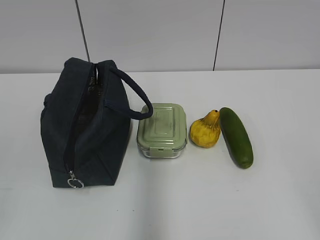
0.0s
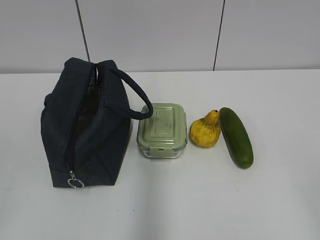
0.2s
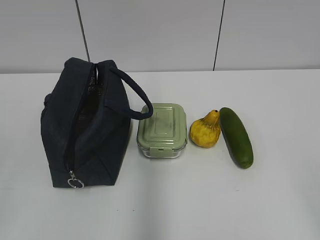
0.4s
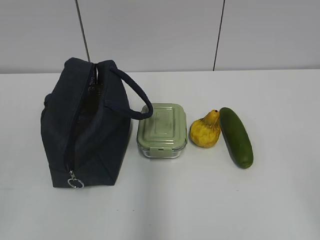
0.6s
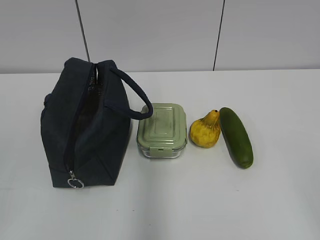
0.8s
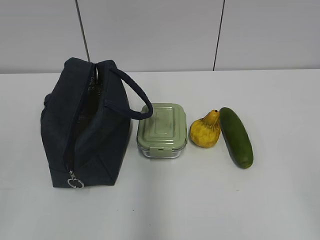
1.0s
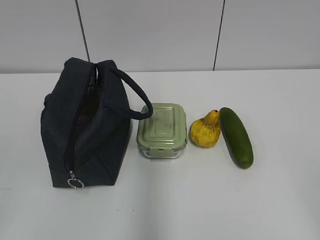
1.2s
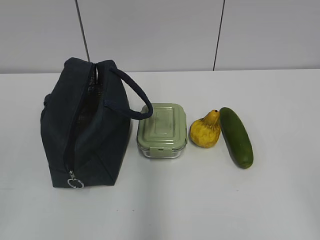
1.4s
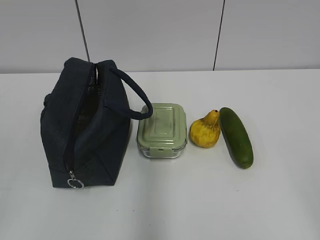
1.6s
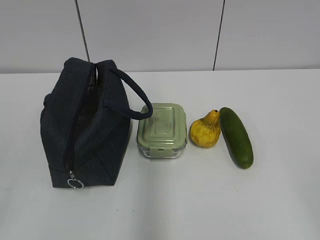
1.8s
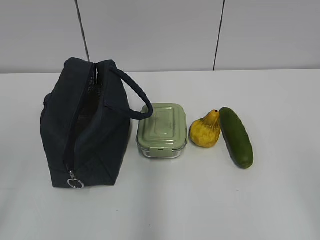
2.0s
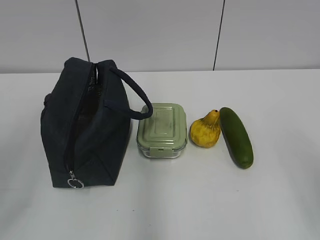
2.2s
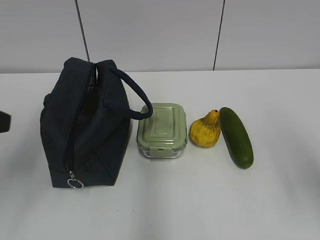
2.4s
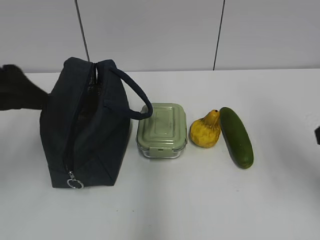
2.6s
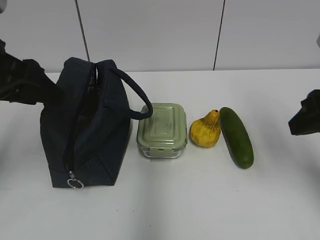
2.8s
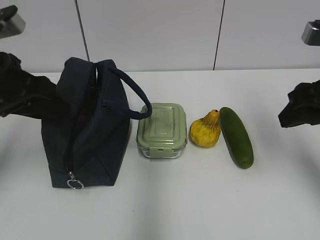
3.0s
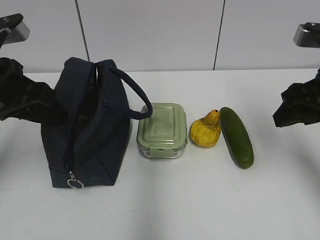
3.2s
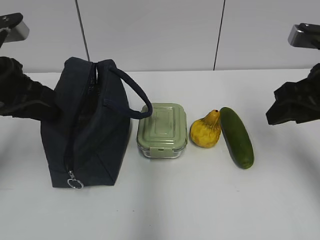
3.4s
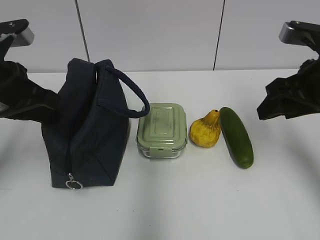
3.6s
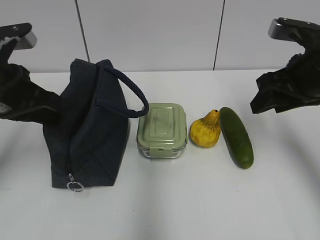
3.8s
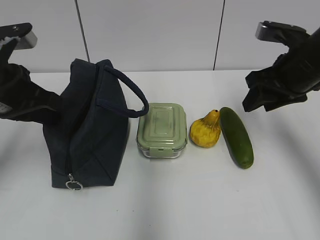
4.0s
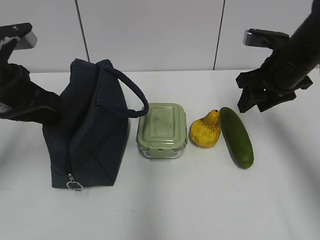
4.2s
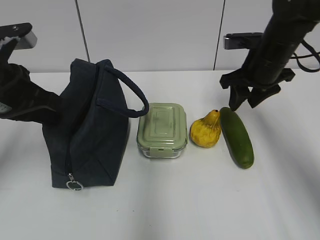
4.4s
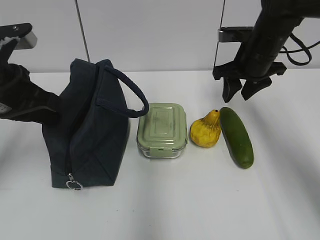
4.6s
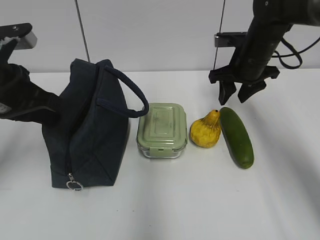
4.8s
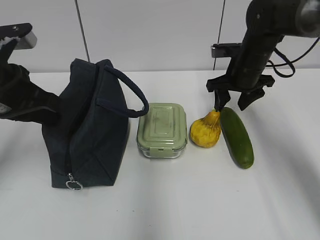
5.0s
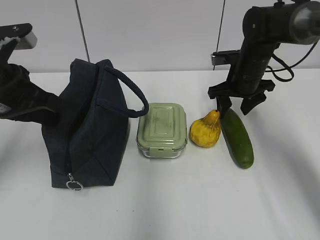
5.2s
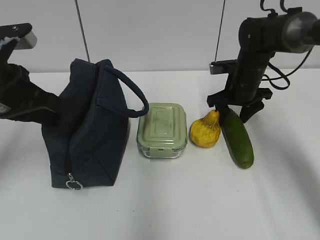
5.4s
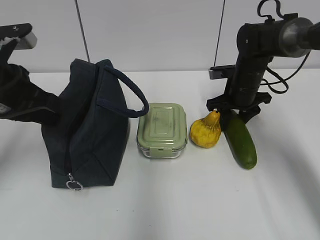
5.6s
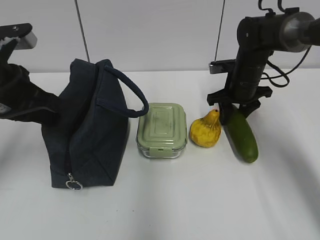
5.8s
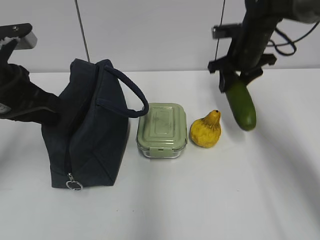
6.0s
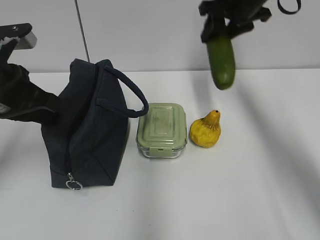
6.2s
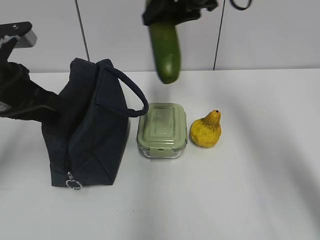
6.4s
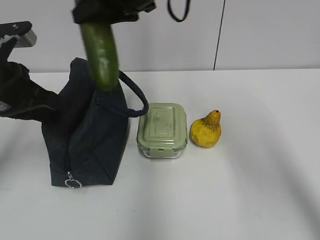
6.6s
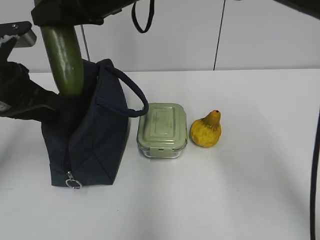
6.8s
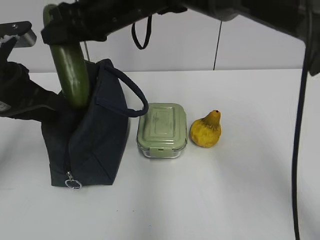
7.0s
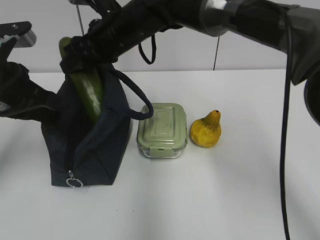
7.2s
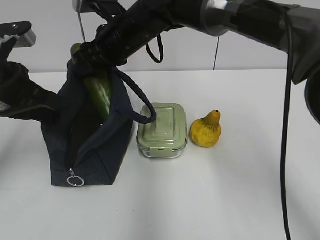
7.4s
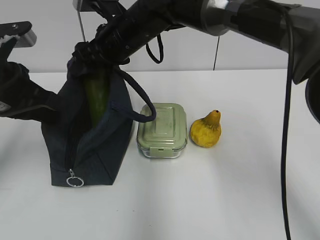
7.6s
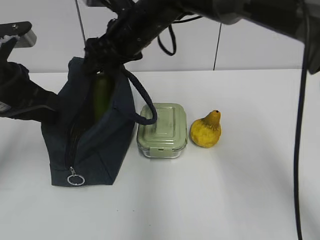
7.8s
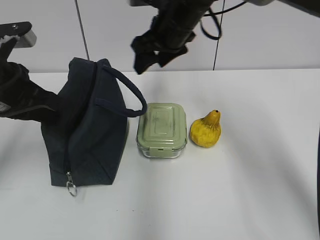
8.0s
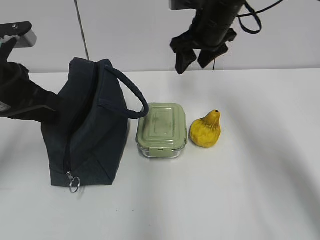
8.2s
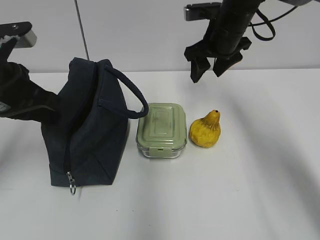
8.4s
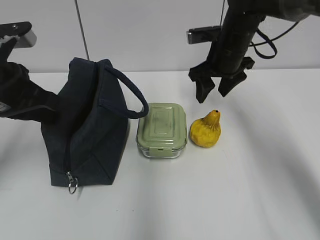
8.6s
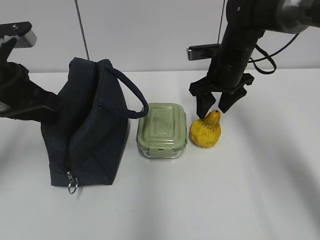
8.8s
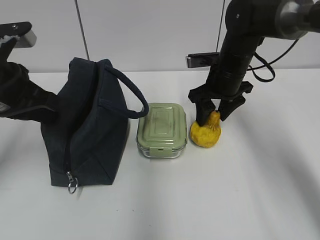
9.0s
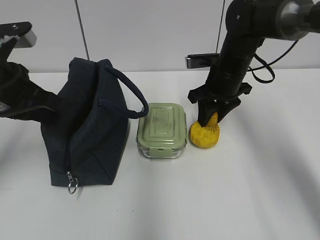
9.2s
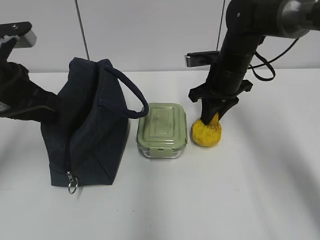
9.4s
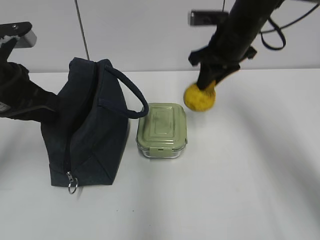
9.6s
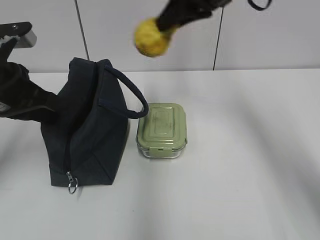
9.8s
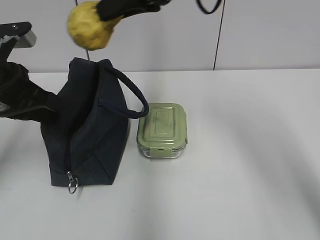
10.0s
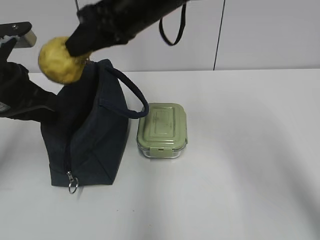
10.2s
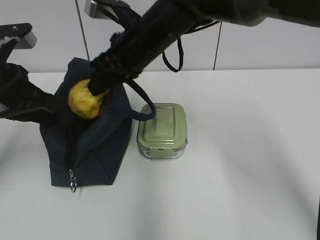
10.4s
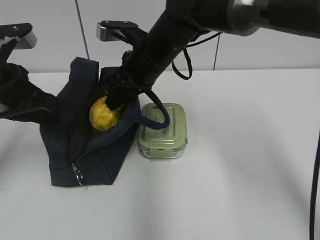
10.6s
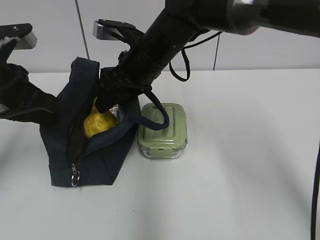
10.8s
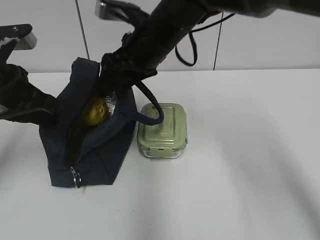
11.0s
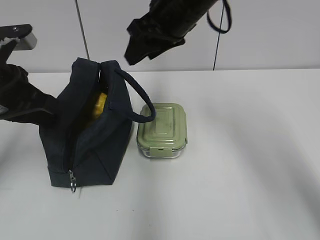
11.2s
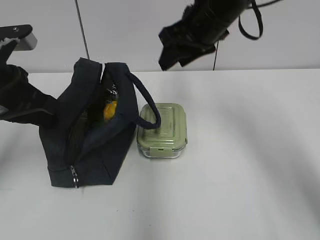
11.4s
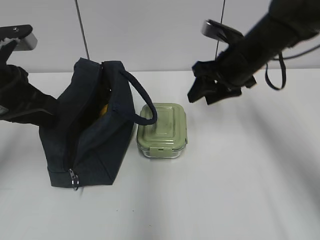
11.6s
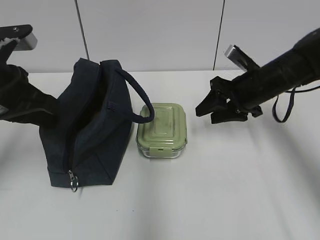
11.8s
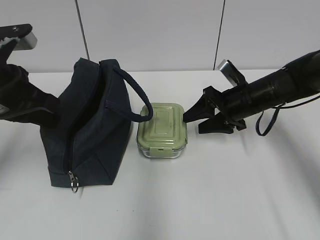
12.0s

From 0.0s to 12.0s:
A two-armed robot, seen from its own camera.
From 1.6s to 3.0s: Both grippers travel together forward, some 25 cm.
From 3.0s to 4.4s: The left gripper closes. Meanwhile the right gripper heads forward, covering about 15 cm.
From 4.4s to 6.0s: The right gripper travels forward by approximately 5 cm, and travels downward and back again, some 10 cm each way.
From 6.0s to 7.6s: The right gripper moves to the left, roughly 20 cm.
From 7.6s to 9.0s: The right gripper goes about 20 cm to the right and downward.
From 9.0s to 10.4s: The right gripper heads to the left and upward, covering approximately 15 cm, and closes its fingers.
From 10.4s to 12.0s: The right gripper moves to the right and downward, about 20 cm, and opens its fingers.

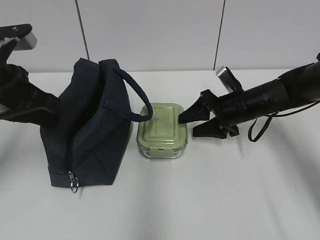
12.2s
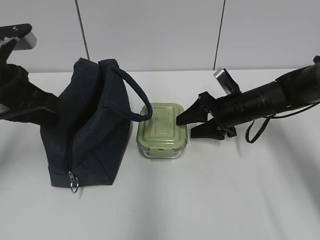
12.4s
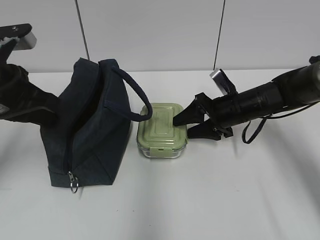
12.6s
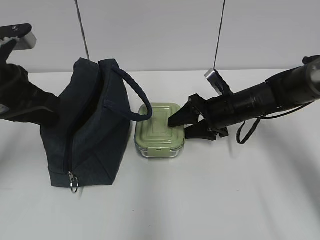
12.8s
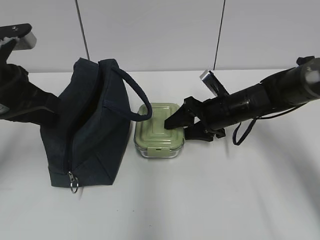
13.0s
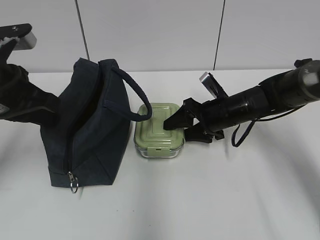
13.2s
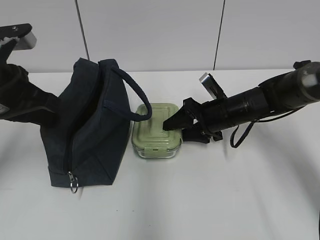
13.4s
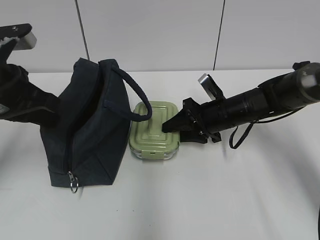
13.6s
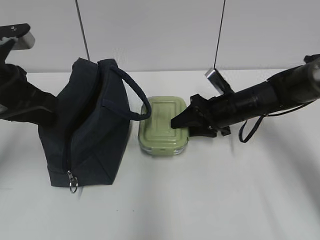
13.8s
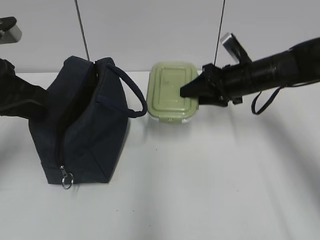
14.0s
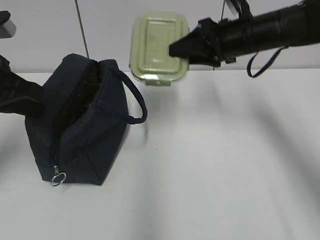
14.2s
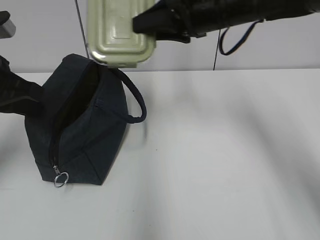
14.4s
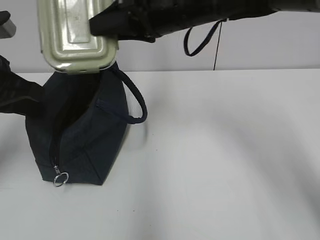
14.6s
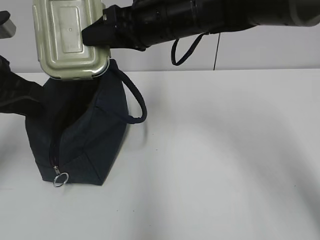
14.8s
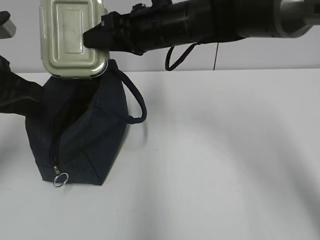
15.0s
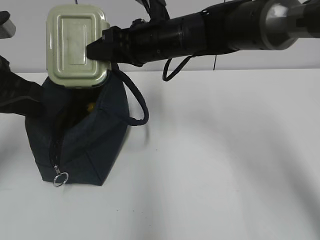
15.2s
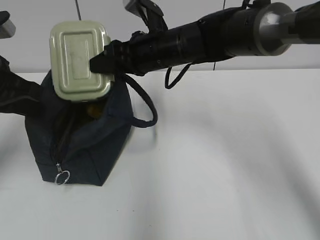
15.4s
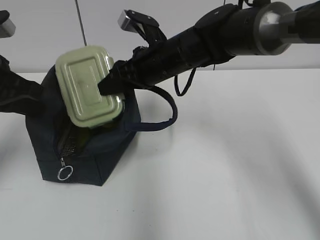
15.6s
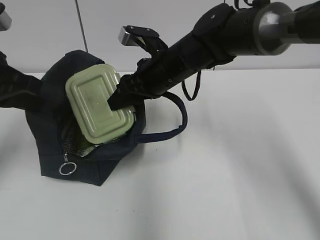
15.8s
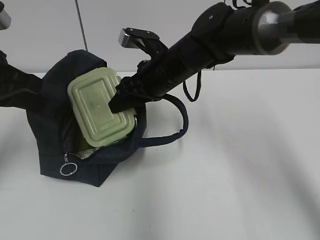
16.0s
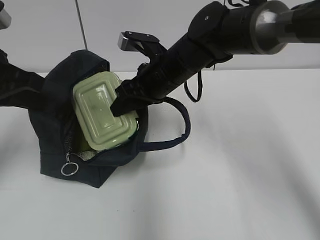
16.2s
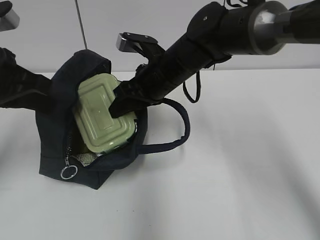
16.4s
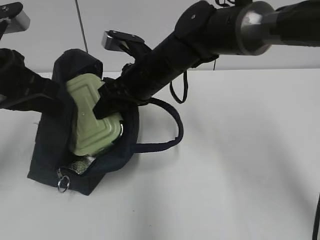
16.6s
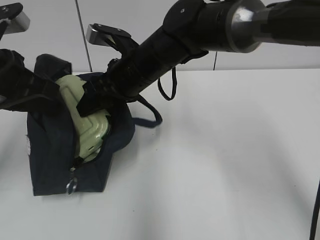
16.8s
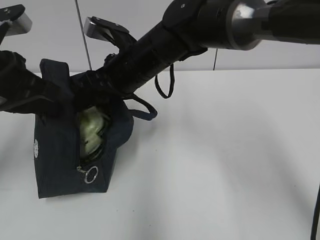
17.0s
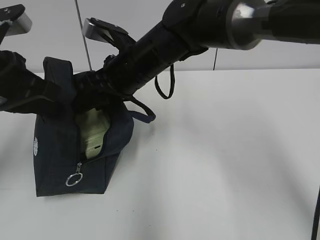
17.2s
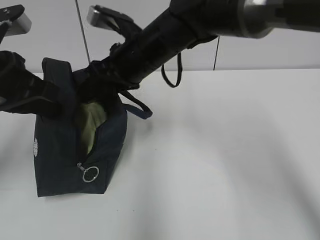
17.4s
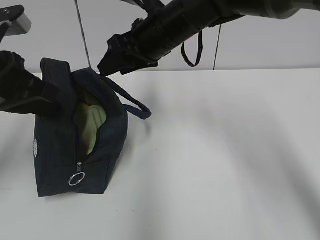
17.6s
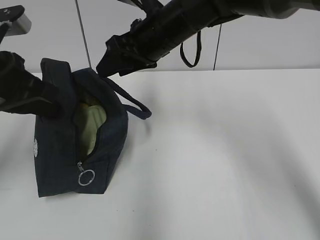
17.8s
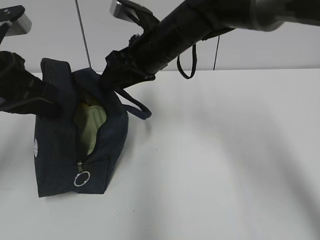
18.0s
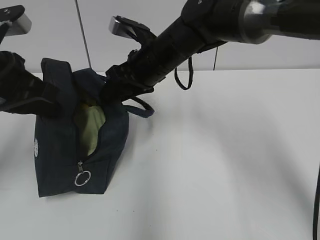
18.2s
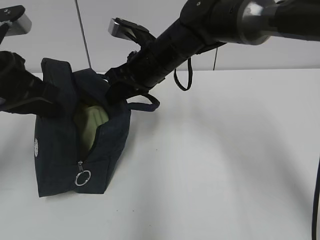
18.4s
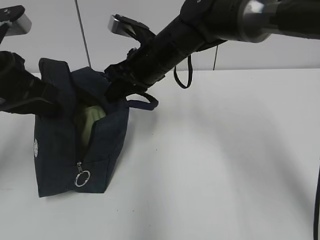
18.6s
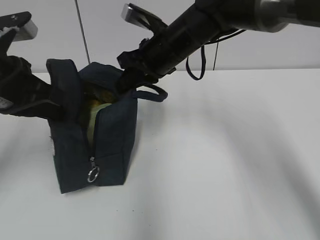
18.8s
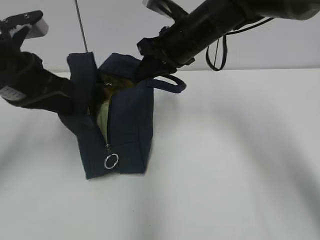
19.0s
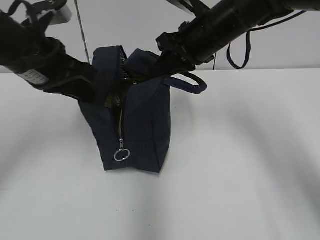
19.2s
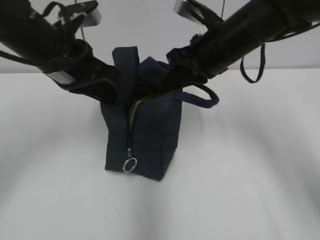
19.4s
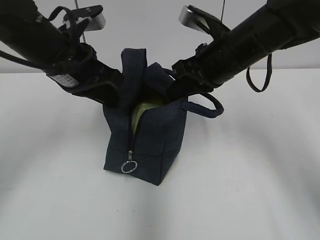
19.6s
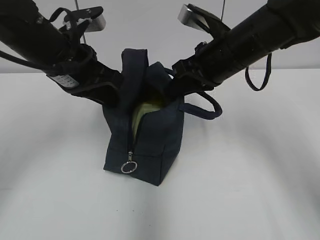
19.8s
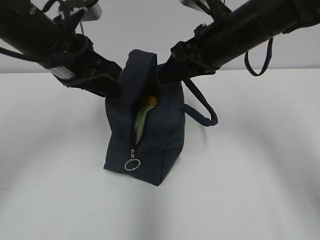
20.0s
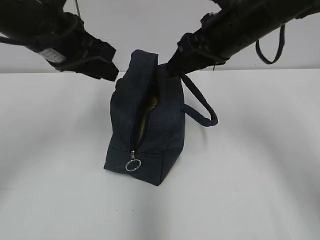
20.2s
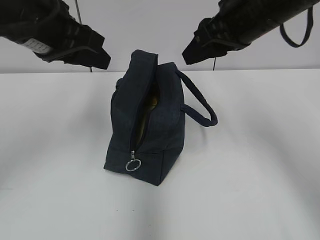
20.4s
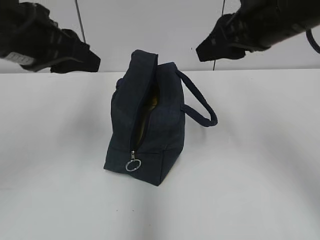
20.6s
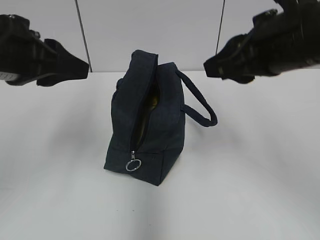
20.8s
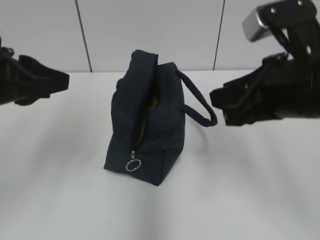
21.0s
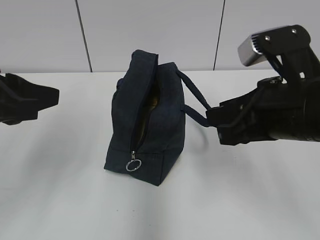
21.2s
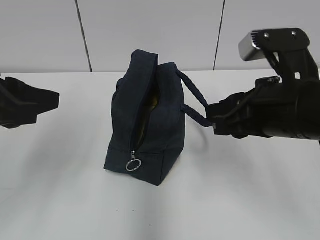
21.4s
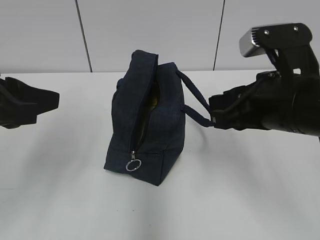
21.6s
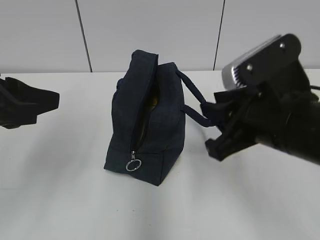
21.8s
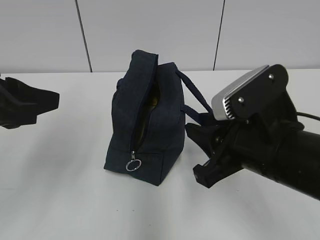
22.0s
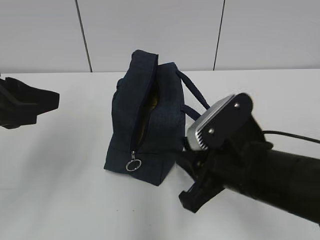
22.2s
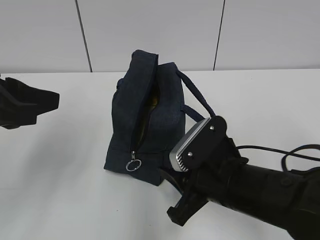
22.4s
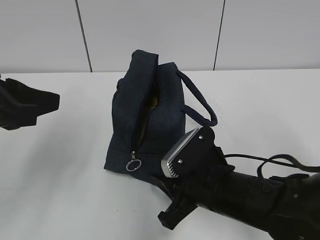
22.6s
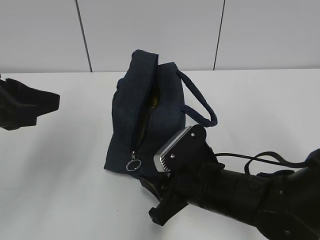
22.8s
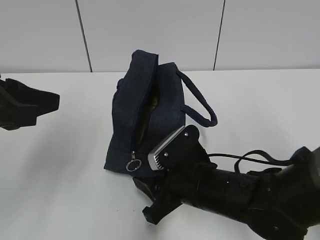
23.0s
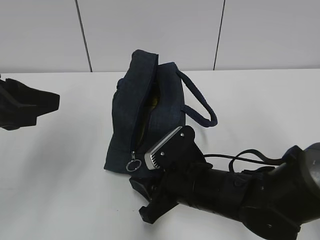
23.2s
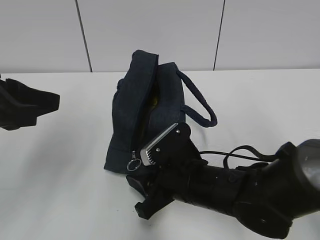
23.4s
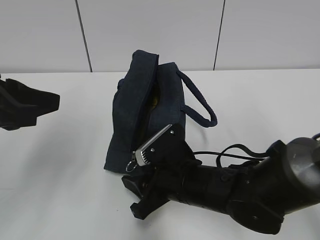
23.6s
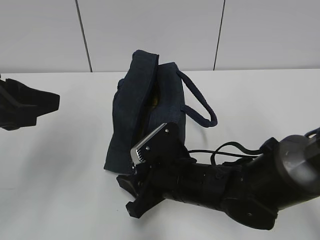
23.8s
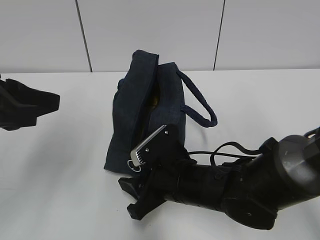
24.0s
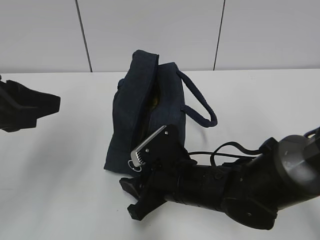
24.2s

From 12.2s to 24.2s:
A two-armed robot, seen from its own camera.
From 12.2s to 13.8s: The grippers move only a little.
From 13.8s to 15.2s: The right gripper is displaced to the left and upward by roughly 20 cm.
From 18.2s to 19.8s: The left gripper shifts about 10 cm to the right and forward; the right gripper is displaced to the right by about 10 cm, and closes.
From 19.8s to 21.2s: The right gripper goes about 15 cm backward. Meanwhile the left gripper goes approximately 15 cm backward and to the left, and opens its fingers.
From 21.2s to 22.6s: The right gripper heads downward and to the left, covering roughly 15 cm.
From 22.6s to 24.2s: The right gripper moves roughly 5 cm.
